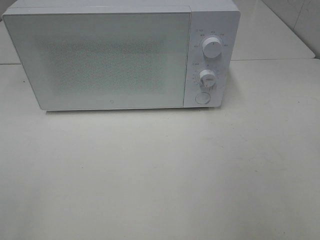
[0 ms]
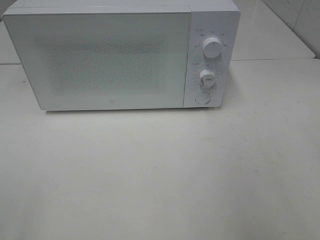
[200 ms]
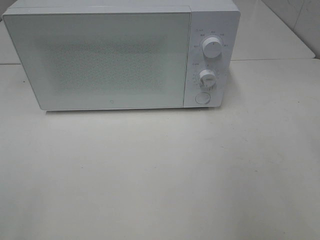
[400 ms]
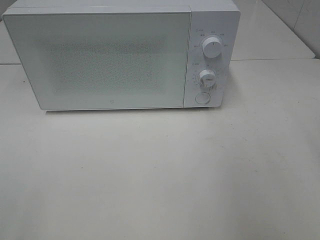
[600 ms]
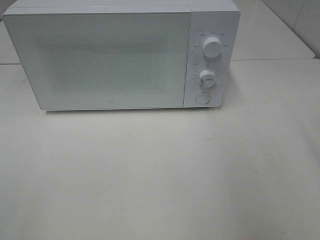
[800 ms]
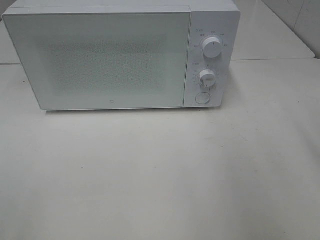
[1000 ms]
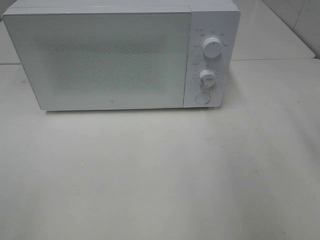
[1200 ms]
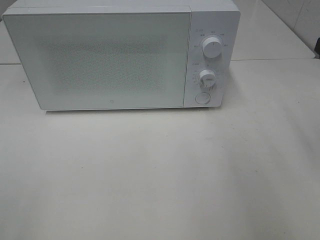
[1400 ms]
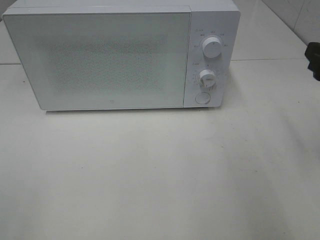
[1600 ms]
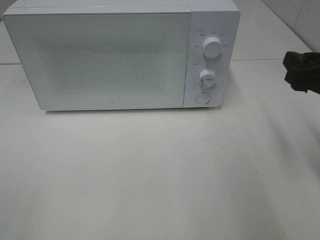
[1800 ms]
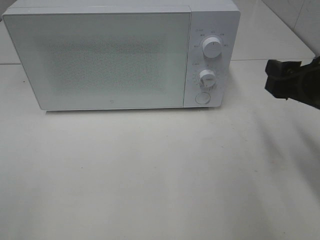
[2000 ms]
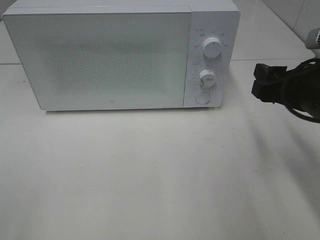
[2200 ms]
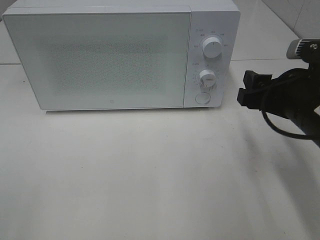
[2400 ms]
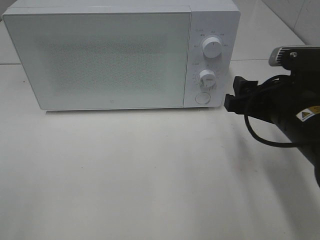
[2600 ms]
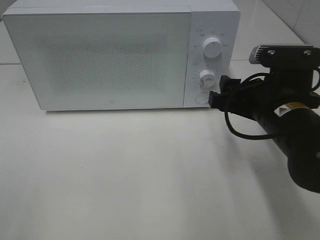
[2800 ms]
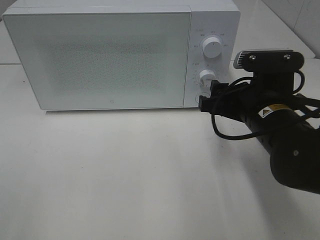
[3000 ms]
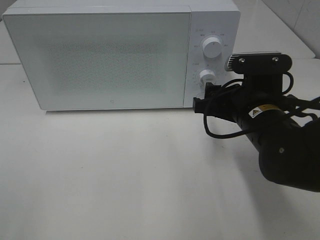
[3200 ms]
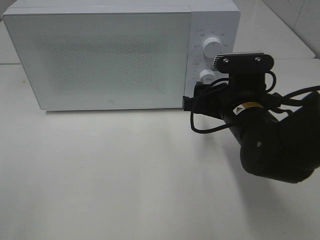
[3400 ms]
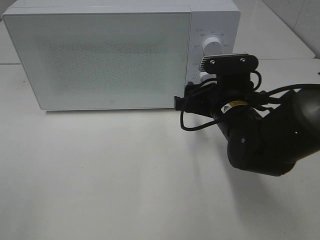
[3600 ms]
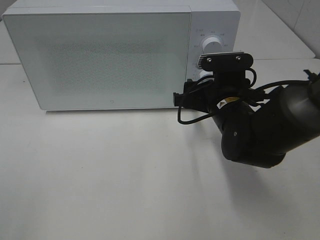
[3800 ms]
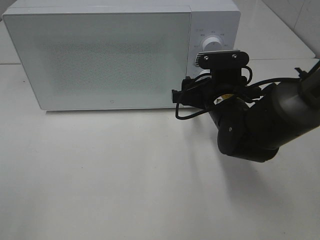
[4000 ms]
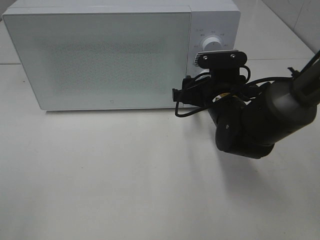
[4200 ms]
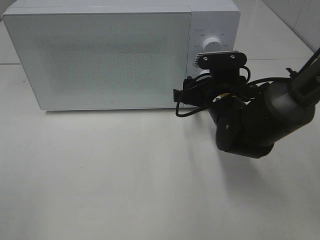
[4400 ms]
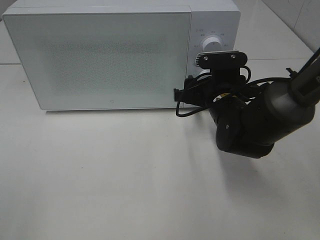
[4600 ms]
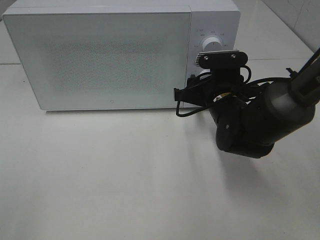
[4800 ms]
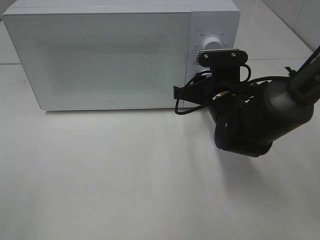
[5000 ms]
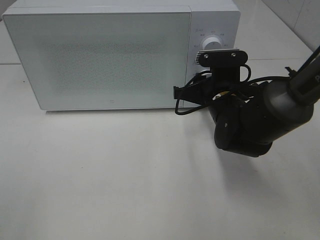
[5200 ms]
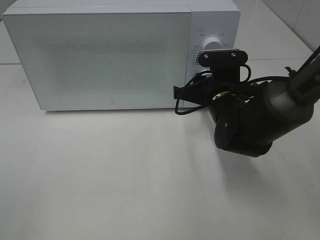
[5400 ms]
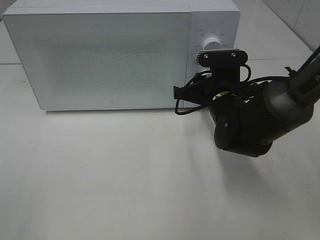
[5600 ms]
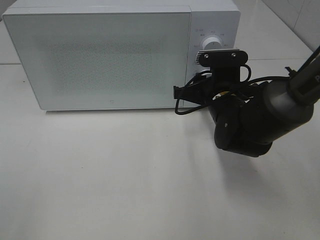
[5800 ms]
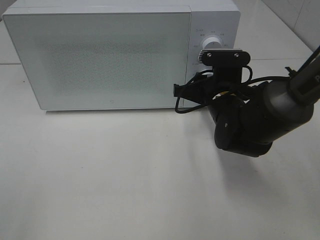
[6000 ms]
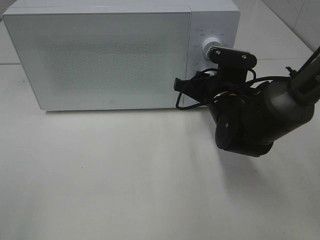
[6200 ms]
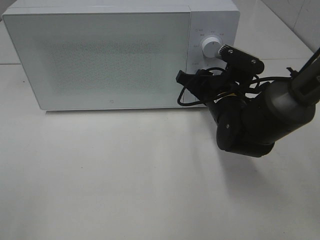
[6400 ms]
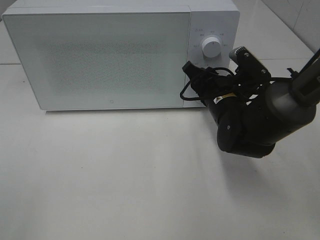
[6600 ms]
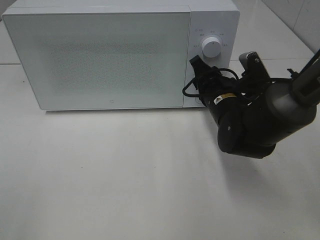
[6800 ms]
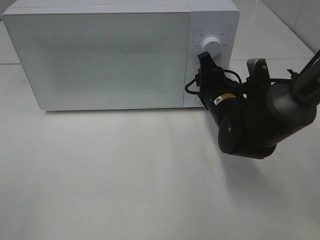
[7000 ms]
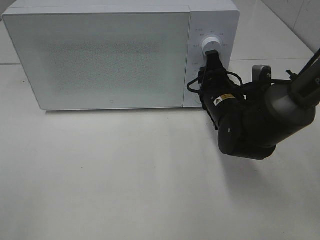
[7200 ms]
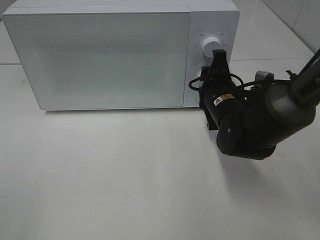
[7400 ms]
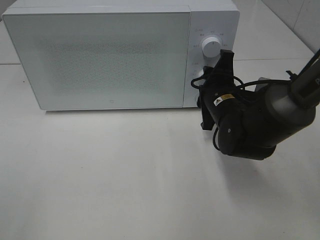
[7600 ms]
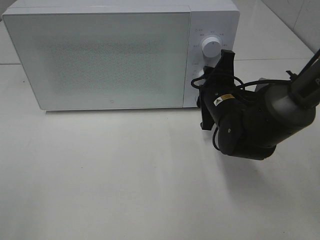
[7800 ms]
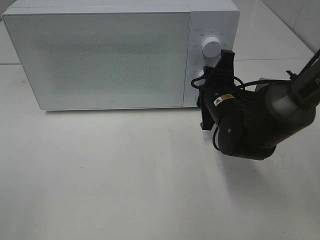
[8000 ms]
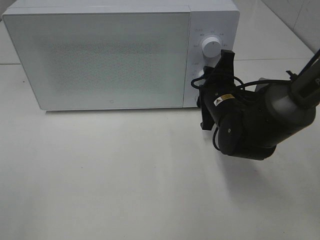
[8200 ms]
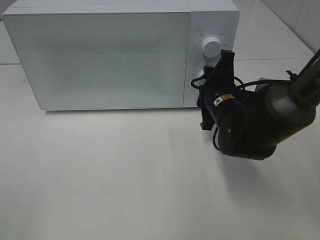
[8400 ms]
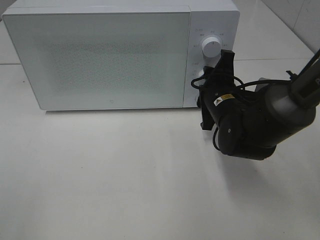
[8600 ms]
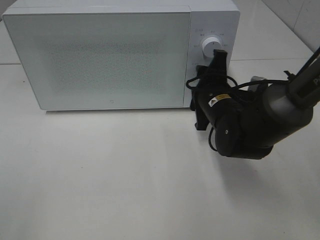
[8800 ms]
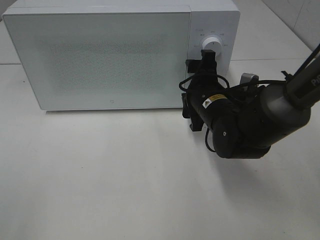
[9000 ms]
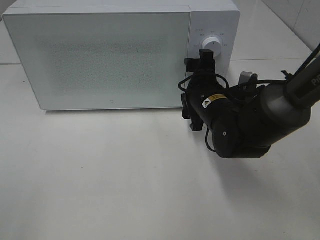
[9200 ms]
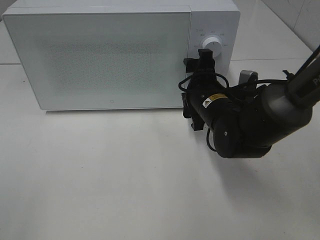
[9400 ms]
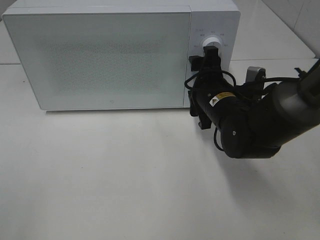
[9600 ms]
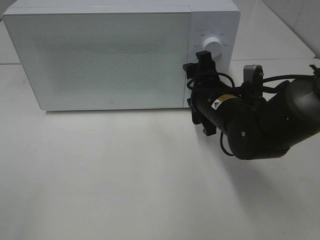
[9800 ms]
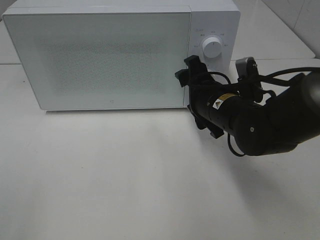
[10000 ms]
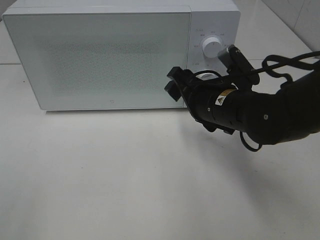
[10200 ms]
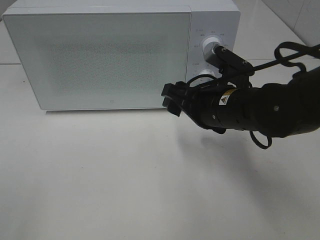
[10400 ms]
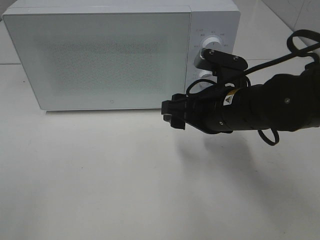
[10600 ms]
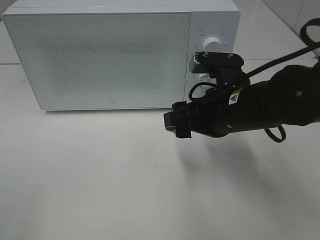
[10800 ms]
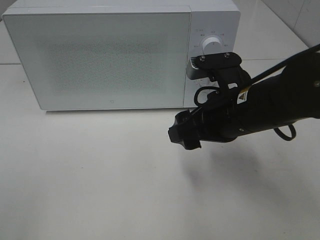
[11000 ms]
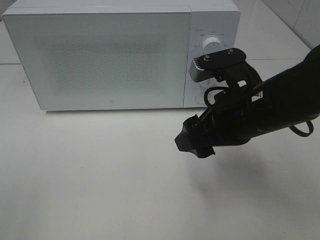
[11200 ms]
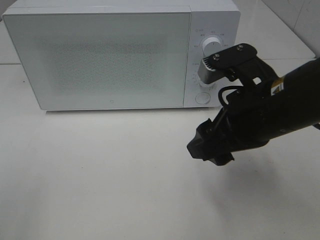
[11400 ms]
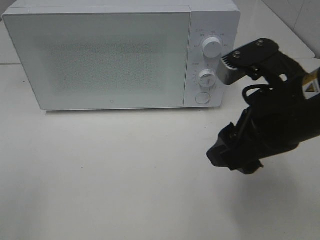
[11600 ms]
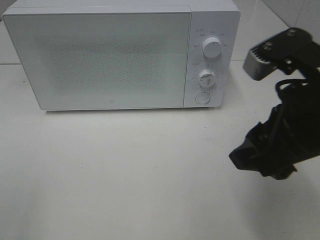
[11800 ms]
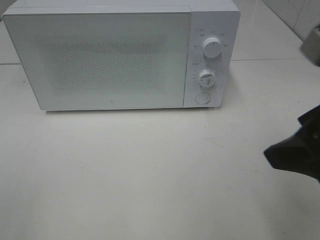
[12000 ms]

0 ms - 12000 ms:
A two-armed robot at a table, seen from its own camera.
Task of the whole recording: Heat Sandwich.
Step, 0 ms - 9800 ms: Right hand: twist timer button.
0 ms - 1600 ms: The right gripper moves forward and downward, about 15 cm.
1600 ms - 3000 ms: The right gripper travels to the left and downward by approximately 15 cm.
3000 ms - 4400 ms: The right gripper shifts approximately 10 cm forward.
4400 ms - 6000 ms: The grippers make only small movements.
7600 ms - 9000 ms: The right gripper opens up.
9000 ms - 10400 ms: The right gripper heads backward, covering roughly 5 cm.
10400 ms - 12000 ms: The right gripper travels backward, upward and to the right by some 20 cm.

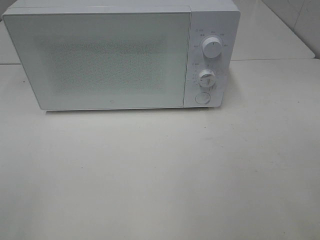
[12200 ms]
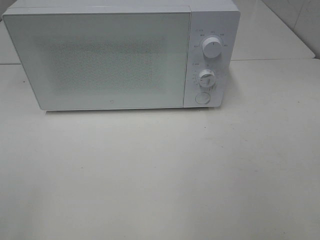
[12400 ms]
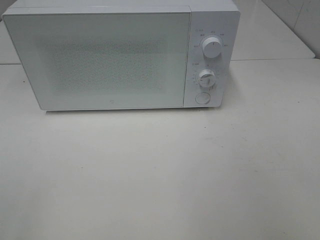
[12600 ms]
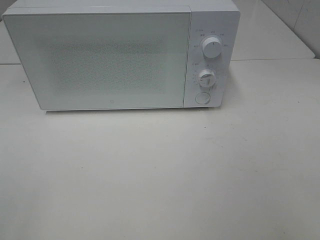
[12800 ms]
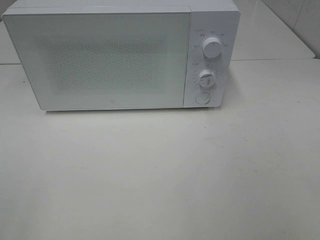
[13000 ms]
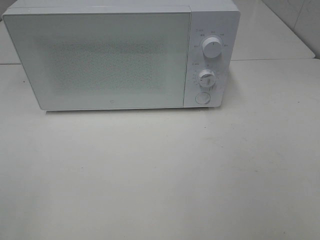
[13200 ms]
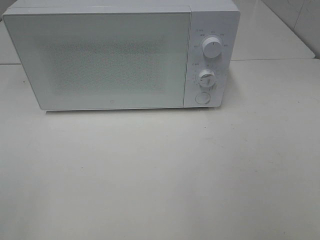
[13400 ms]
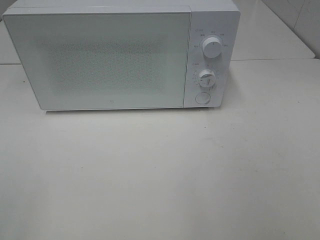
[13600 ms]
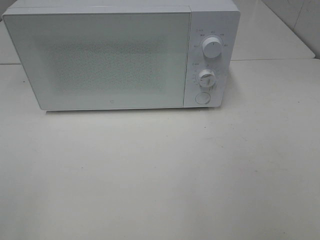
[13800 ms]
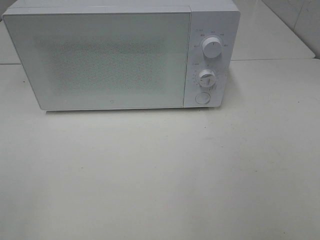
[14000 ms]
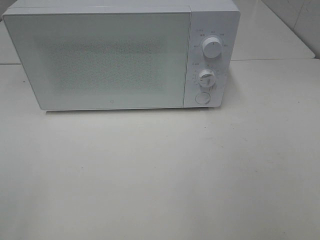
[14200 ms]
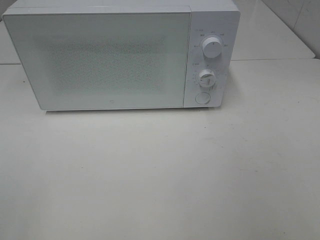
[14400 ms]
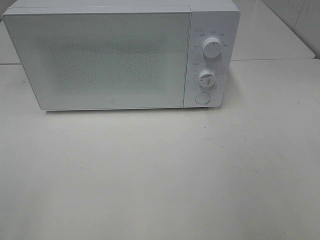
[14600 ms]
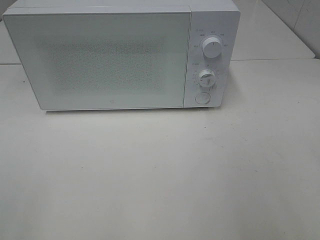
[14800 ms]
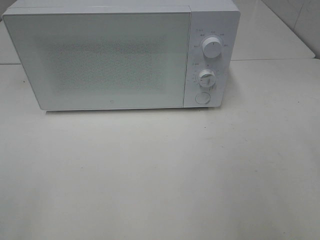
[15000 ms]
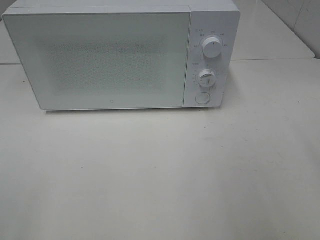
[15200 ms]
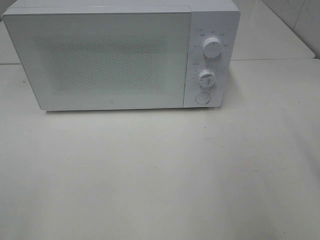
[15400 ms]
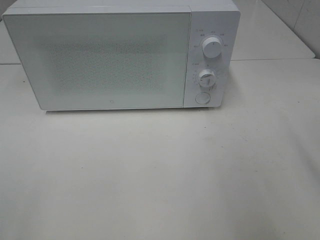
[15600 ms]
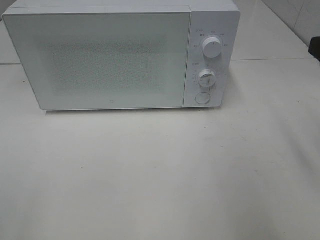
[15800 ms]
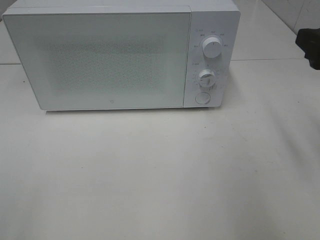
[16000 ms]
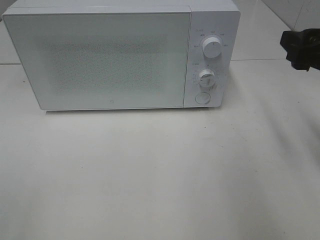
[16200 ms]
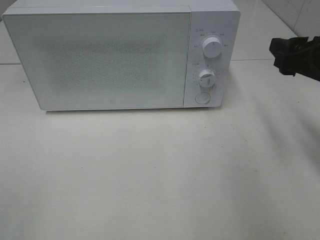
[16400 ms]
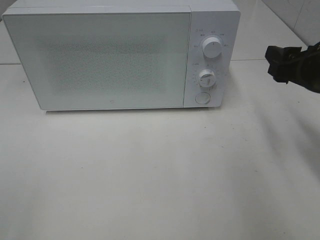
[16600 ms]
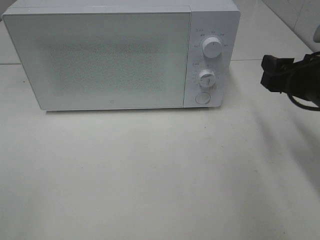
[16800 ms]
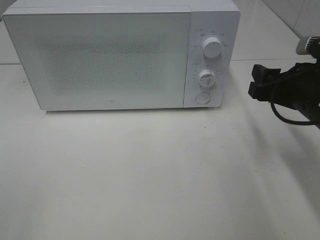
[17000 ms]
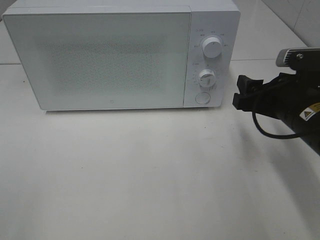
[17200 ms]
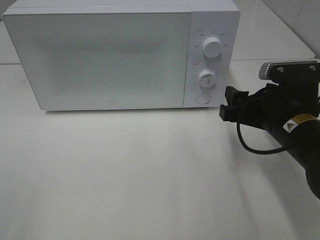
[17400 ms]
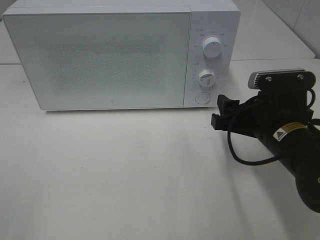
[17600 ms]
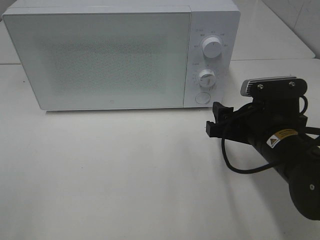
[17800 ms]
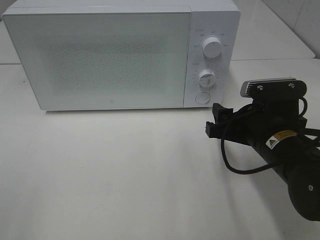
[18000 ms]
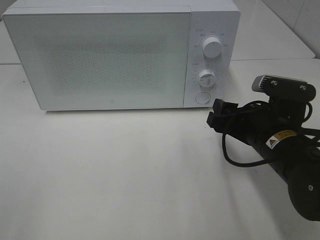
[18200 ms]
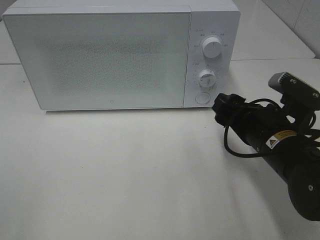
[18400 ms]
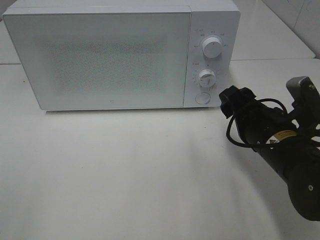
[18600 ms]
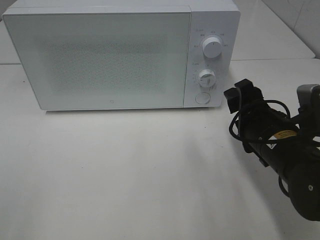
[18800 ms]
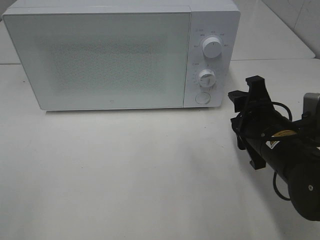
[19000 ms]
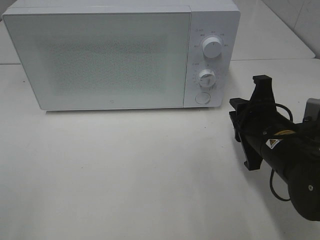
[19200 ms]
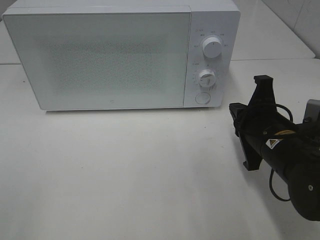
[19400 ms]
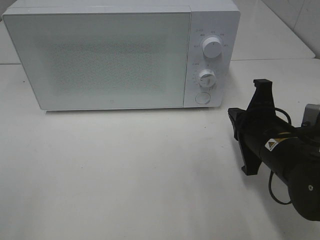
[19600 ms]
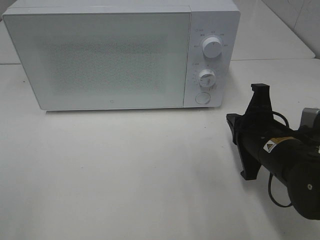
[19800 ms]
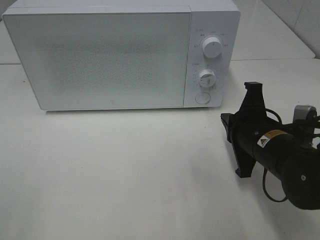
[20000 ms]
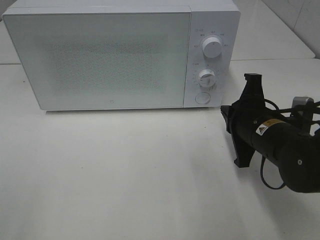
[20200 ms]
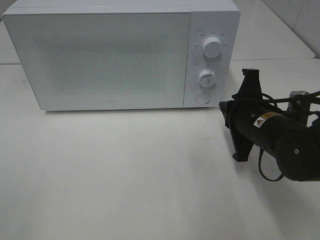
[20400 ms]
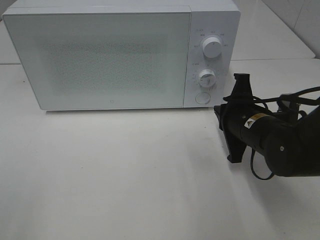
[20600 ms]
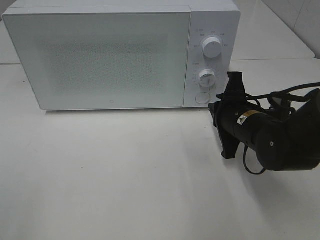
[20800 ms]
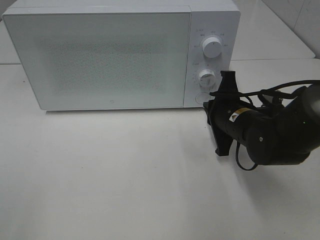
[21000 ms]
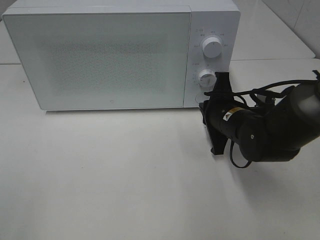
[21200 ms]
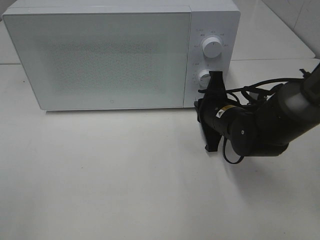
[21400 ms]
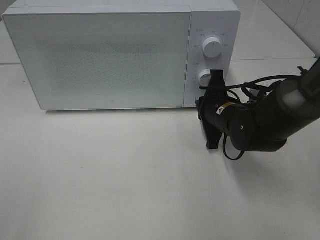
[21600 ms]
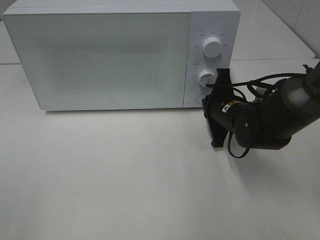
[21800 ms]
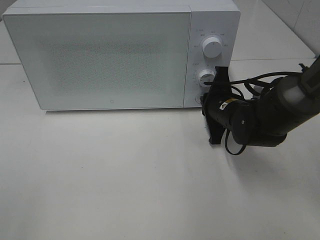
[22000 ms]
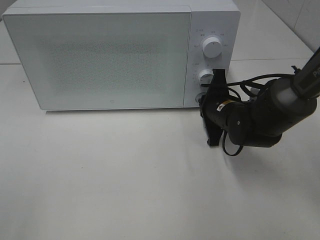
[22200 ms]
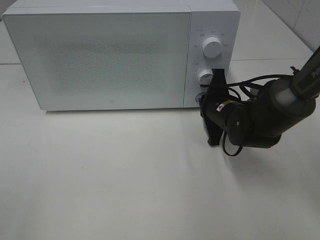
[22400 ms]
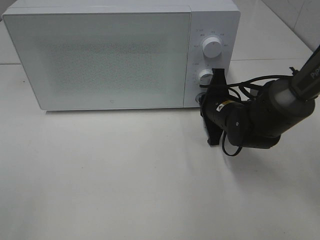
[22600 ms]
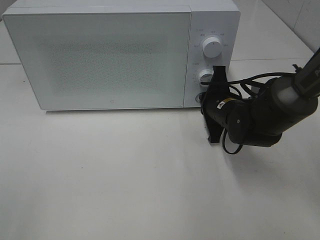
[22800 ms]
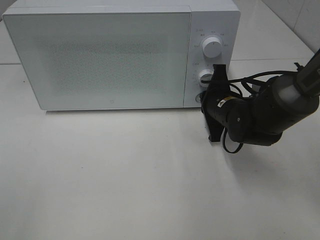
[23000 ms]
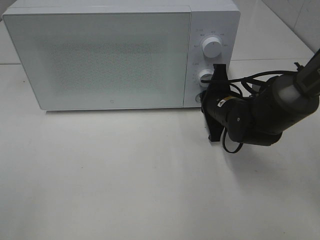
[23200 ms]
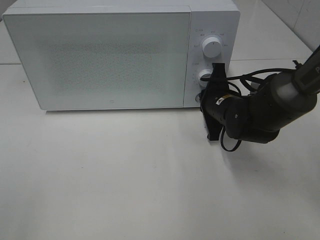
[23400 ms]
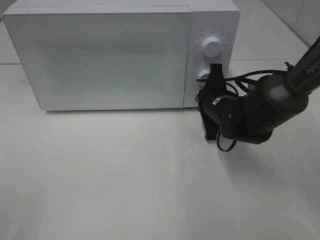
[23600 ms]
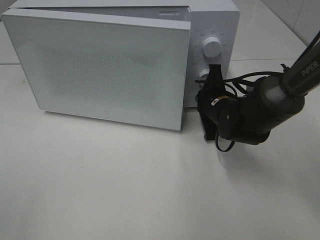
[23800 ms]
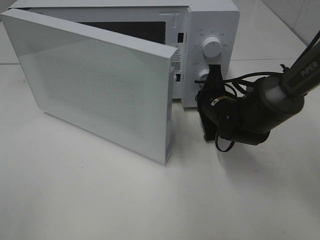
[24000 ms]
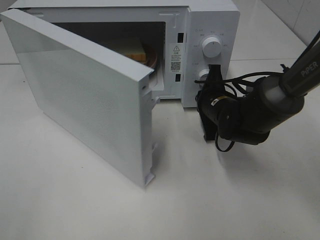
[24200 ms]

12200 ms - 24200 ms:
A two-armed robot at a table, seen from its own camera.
Task of the whole recording: Heat Sandwich.
15200 ms - 16600 ms: The right gripper moves forward and downward, approximately 15 cm.
16600 ms - 18200 ms: The right gripper shifts roughly 10 cm to the left and downward.
18200 ms - 19800 ms: The right gripper closes its fingers.
19800 ms - 21200 ms: The right gripper shifts approximately 10 cm forward.
21200 ms - 22600 ms: The grippers make only small movements.
